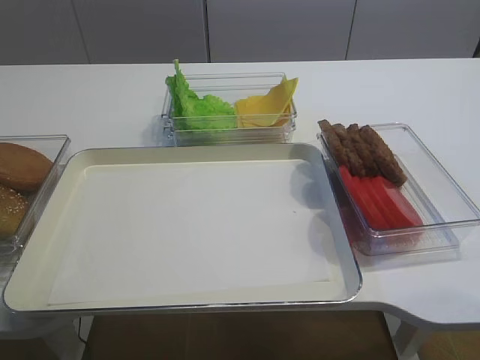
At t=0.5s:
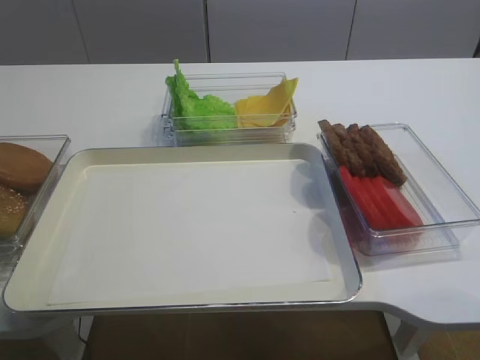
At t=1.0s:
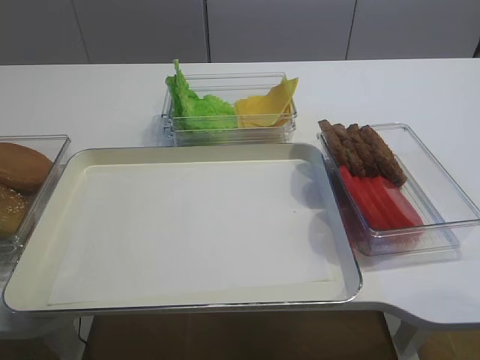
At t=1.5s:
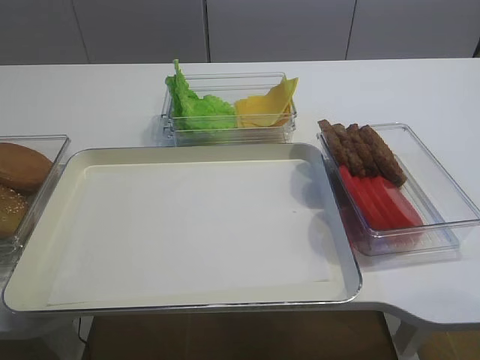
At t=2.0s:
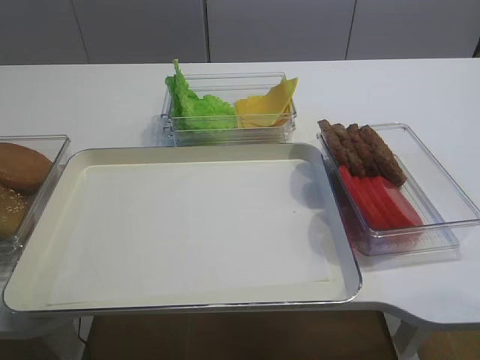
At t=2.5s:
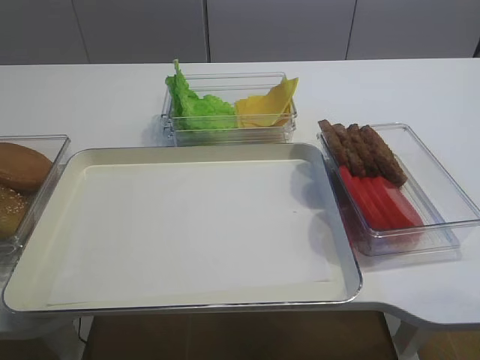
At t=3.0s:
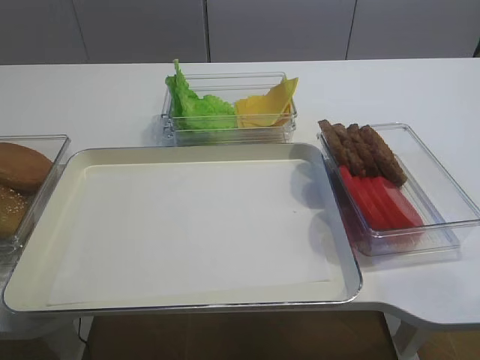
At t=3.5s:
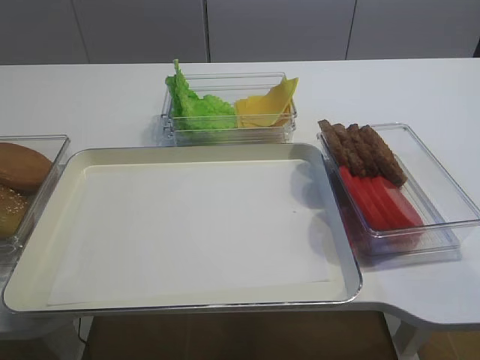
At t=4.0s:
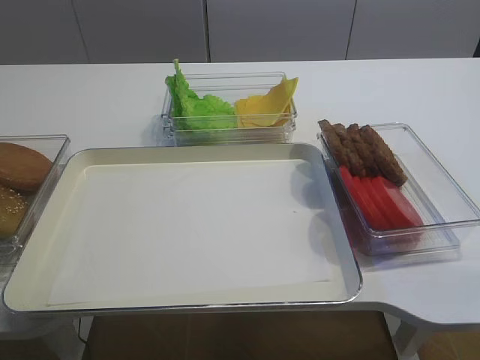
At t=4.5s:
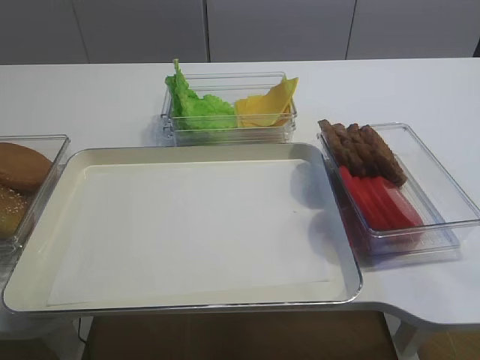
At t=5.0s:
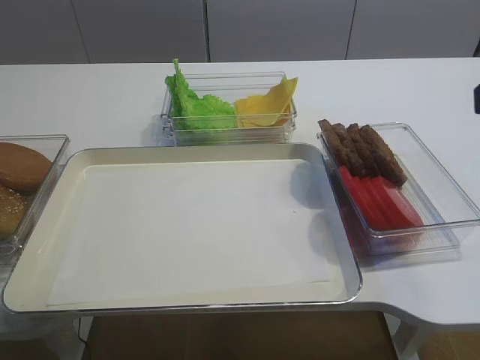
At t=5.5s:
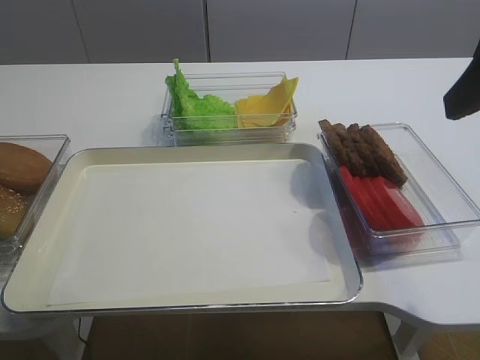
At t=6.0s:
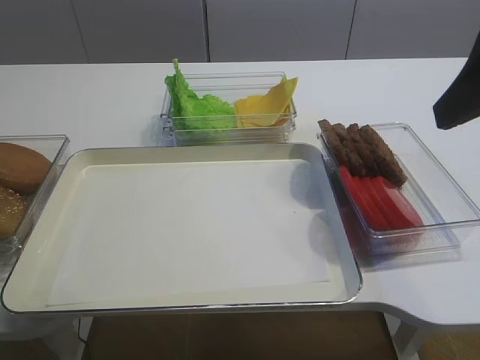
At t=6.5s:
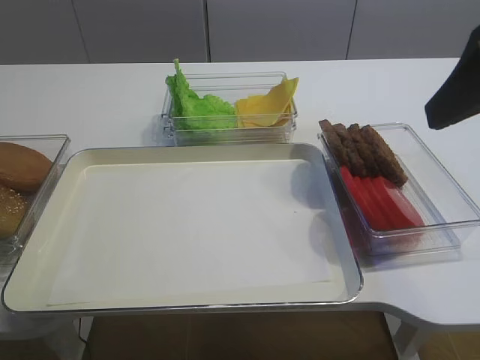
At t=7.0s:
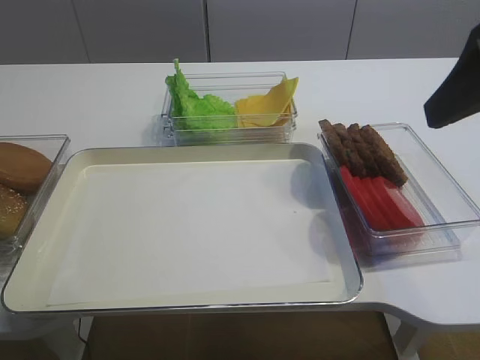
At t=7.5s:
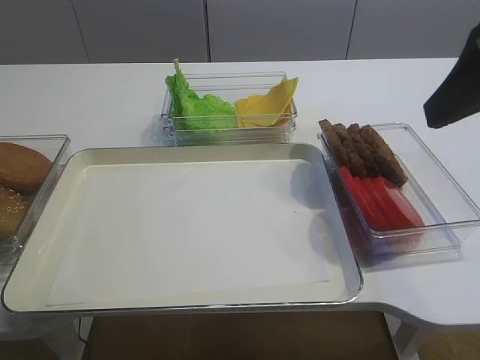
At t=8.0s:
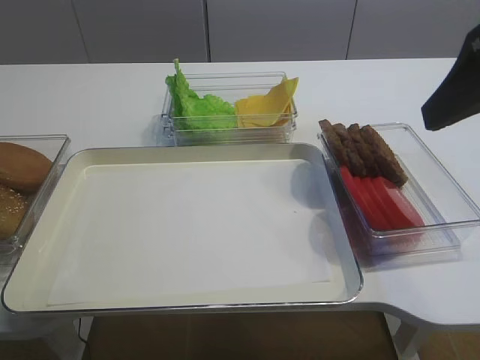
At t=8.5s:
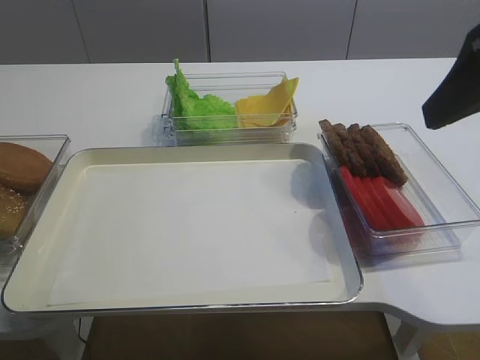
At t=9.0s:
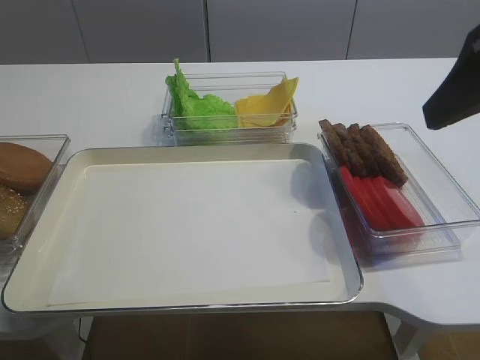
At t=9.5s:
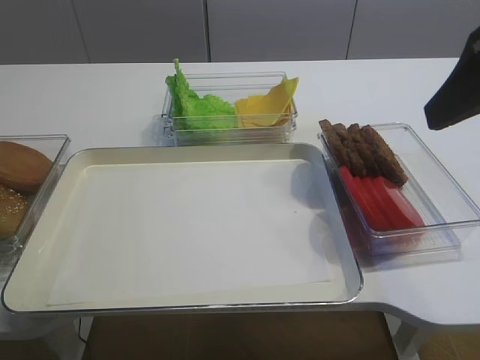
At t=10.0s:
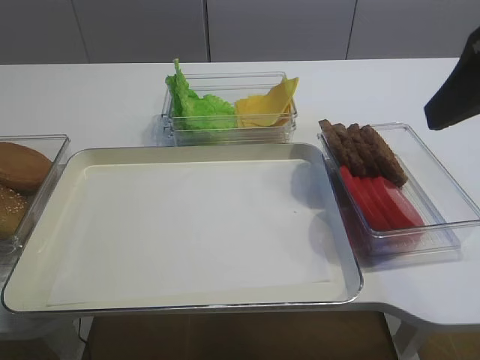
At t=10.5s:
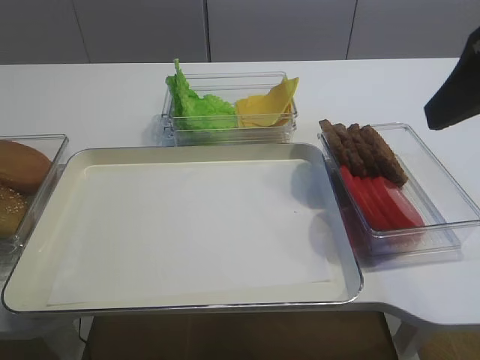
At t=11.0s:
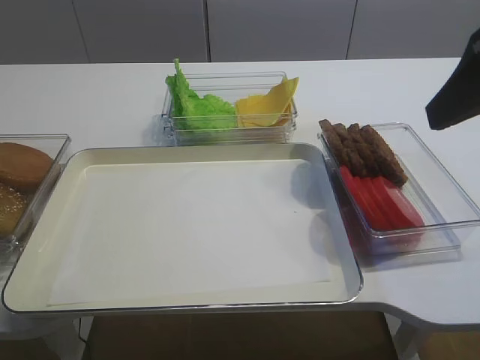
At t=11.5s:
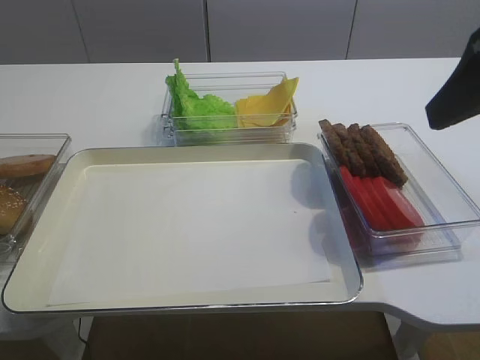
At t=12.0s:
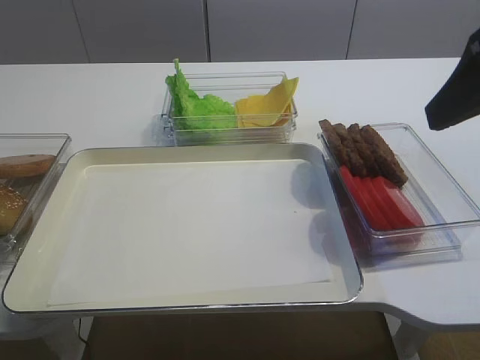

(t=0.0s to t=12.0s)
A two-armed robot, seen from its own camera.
t=2.0s - t=4.0s: The right gripper changes place by approximately 5 cm.
t=4.0s - t=6.0s: The right gripper travels forward by some 15 cm, and opens.
t=10.0s - t=12.0s: The left gripper shifts about 10 cm upward.

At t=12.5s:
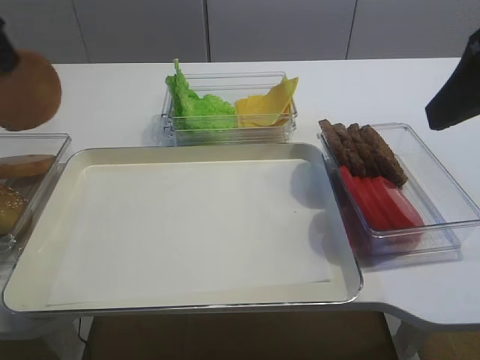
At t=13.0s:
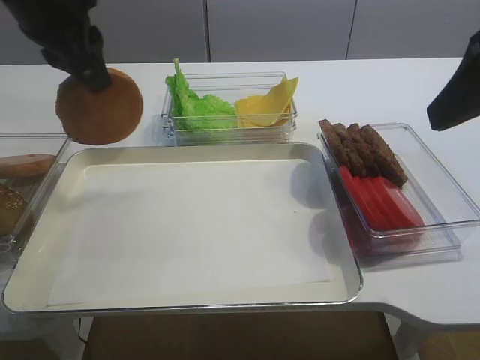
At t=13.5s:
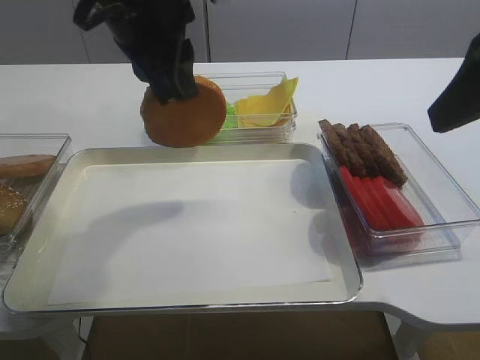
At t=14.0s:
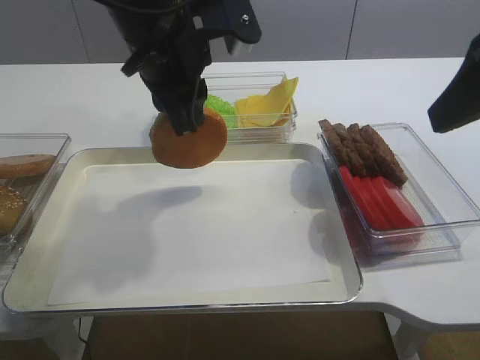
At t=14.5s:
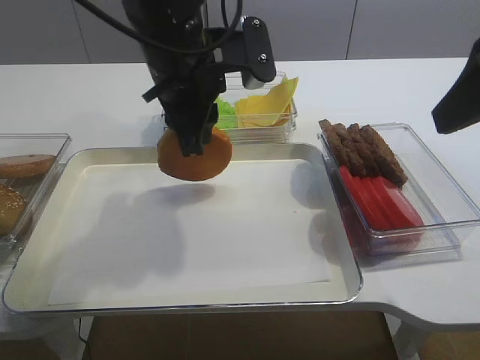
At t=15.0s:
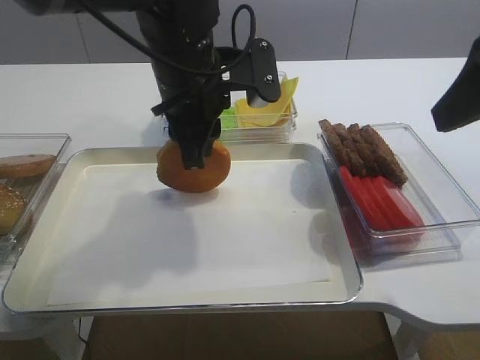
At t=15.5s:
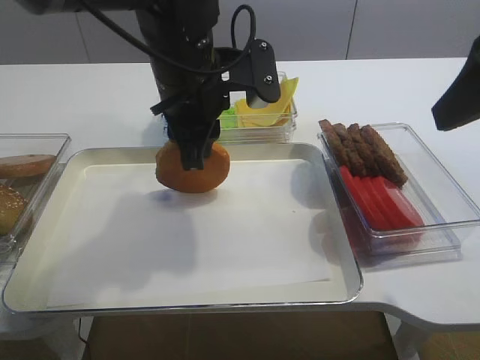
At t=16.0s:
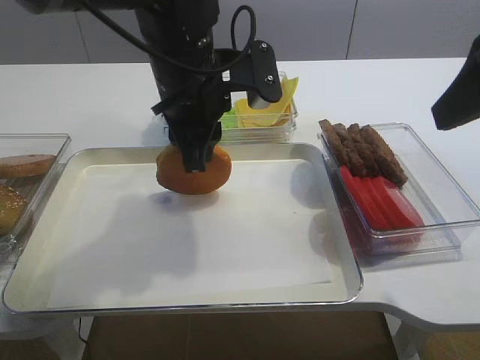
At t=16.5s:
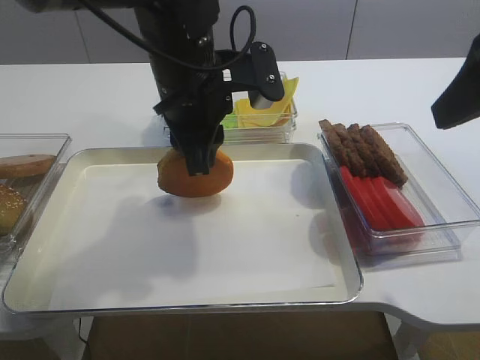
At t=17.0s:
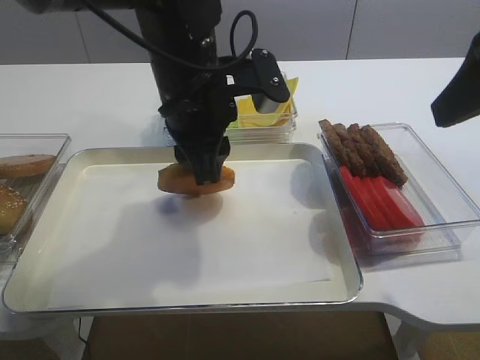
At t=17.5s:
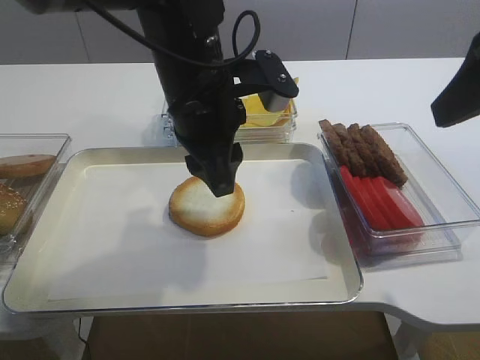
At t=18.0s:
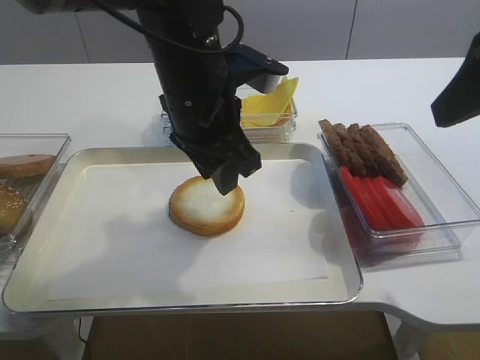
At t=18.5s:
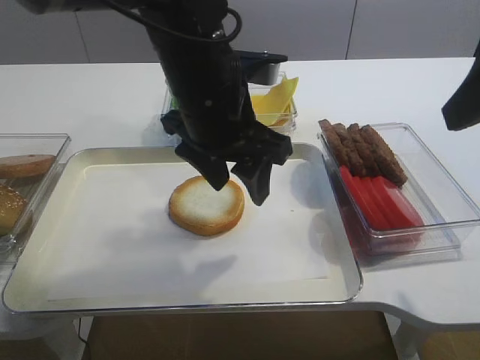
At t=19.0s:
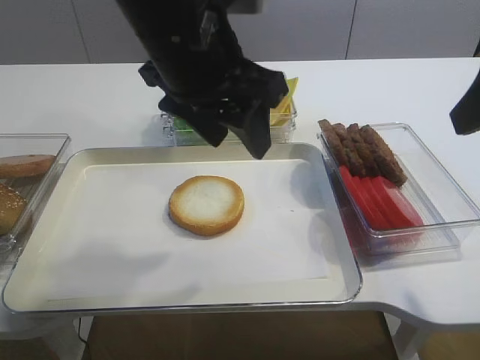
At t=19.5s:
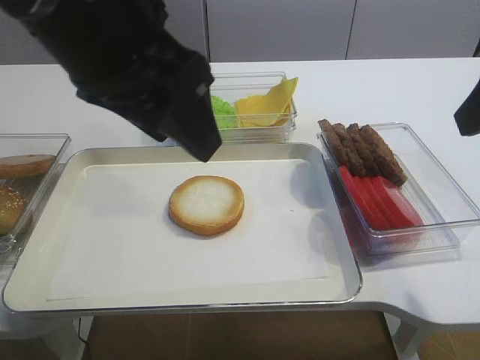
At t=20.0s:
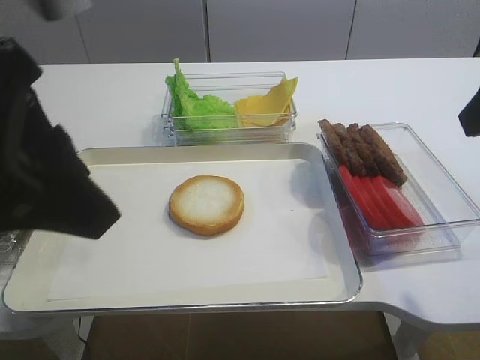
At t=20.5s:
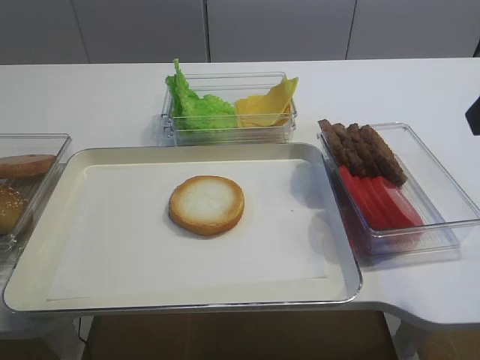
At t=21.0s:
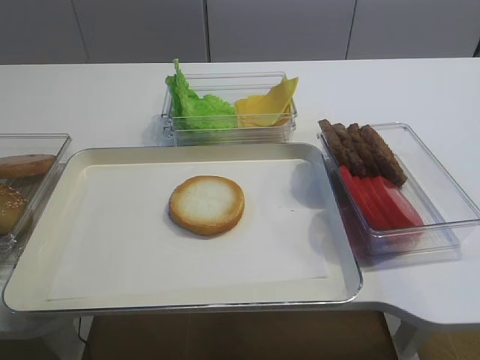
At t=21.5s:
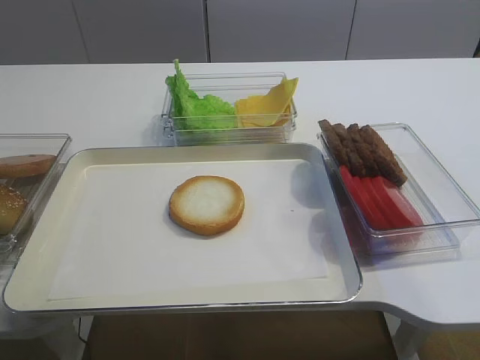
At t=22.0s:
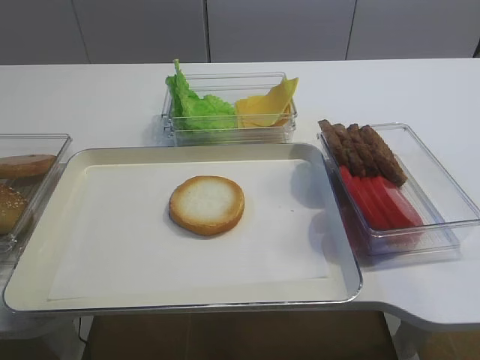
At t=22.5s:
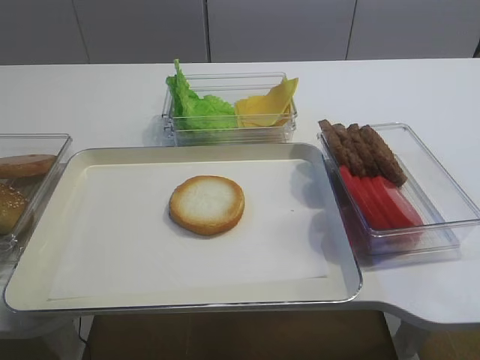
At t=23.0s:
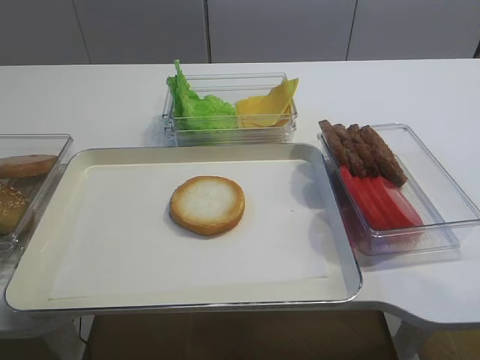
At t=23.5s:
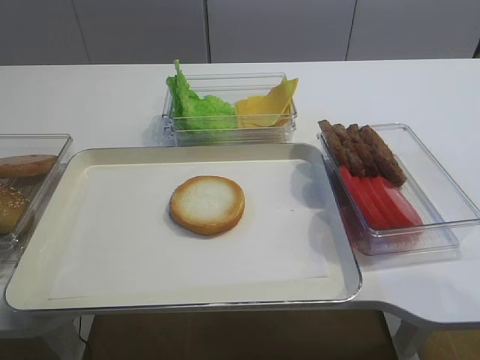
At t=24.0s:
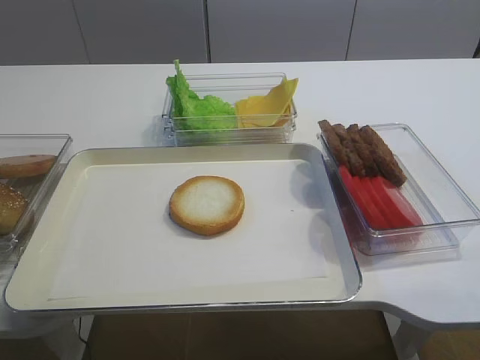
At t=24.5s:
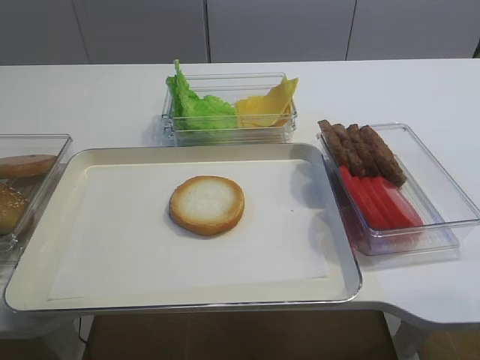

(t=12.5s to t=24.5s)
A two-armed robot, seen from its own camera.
Step, t=12.5s - t=17.0s: Place the bread slice on the tray with the left gripper.
t=12.5s - t=14.5s: The left gripper goes roughly 25 cm to the right.
t=14.5s - t=16.5s: There are only small adjustments of the grippers.
t=16.5s - t=18.5s: The left gripper opens.
t=18.5s - t=20.5s: The left gripper is displaced backward and to the left by roughly 30 cm.
t=22.5s - t=24.5s: The right gripper travels downward by approximately 15 cm.

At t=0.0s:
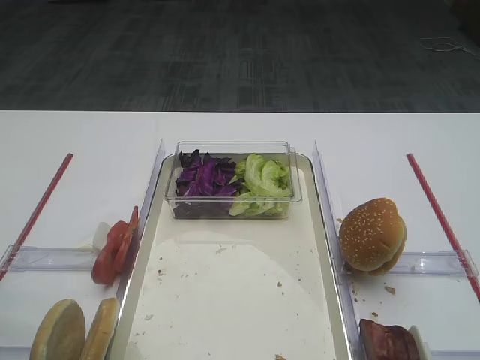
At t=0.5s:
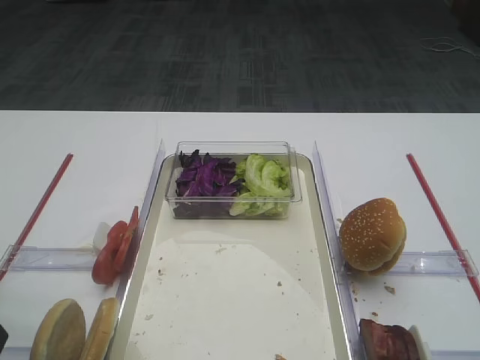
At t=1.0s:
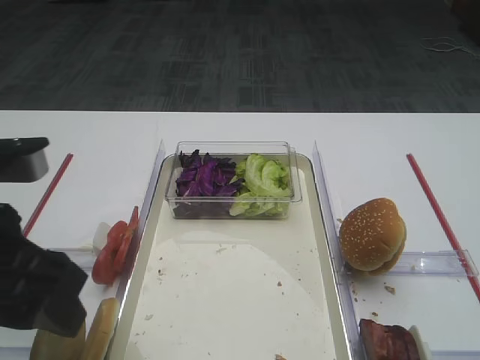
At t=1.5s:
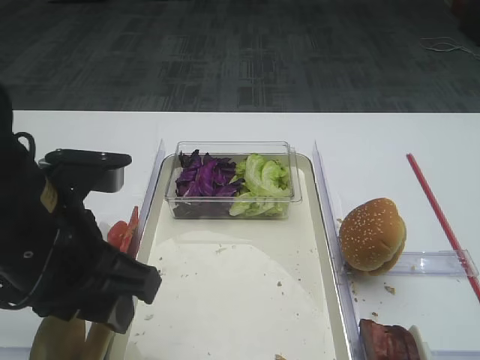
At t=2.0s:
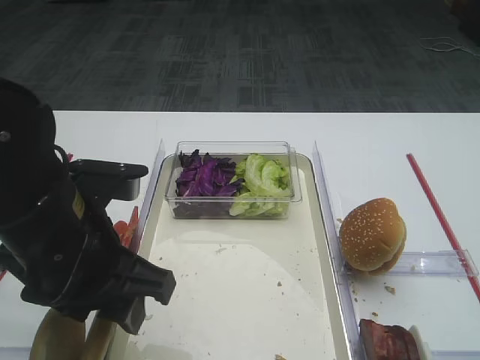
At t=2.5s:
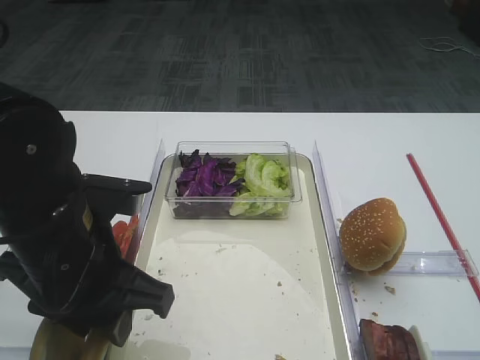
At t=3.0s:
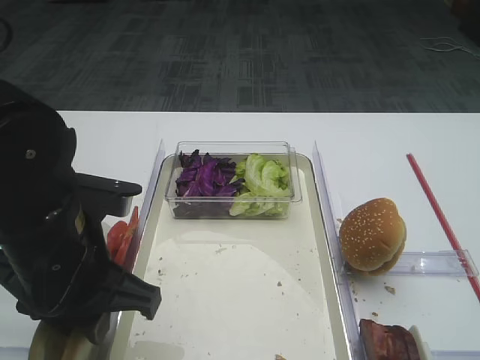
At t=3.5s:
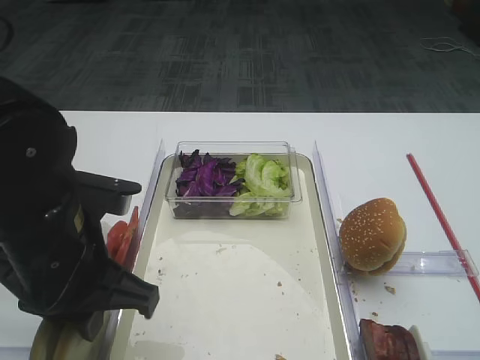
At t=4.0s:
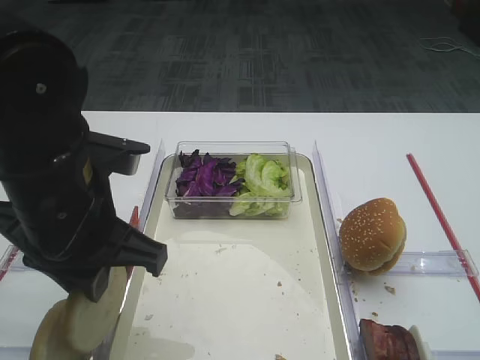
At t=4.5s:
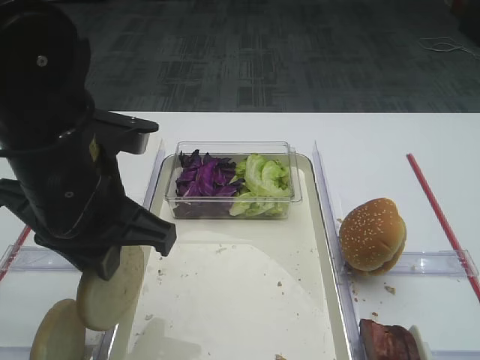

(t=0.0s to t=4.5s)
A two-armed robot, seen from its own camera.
Step, t=0.0s - t=4.5s: Pick up the bread slice with the left gripper.
t=0.0s - t=2.0s: The left gripper shifts about 15 cm to the right and forward.
t=2.0s - t=4.5s: The left gripper closes its fingers.
